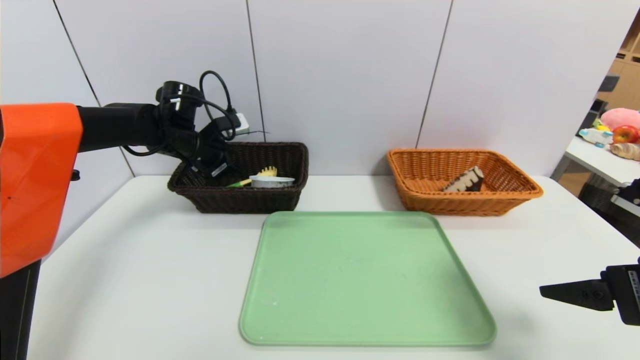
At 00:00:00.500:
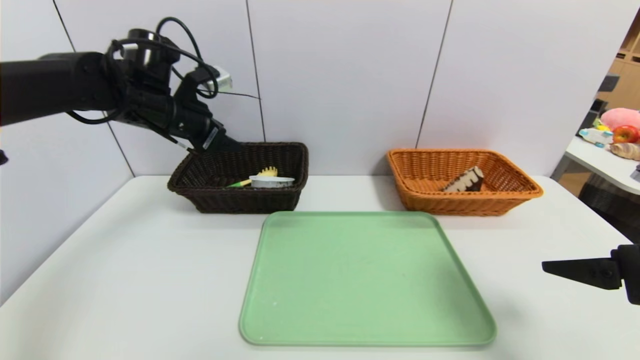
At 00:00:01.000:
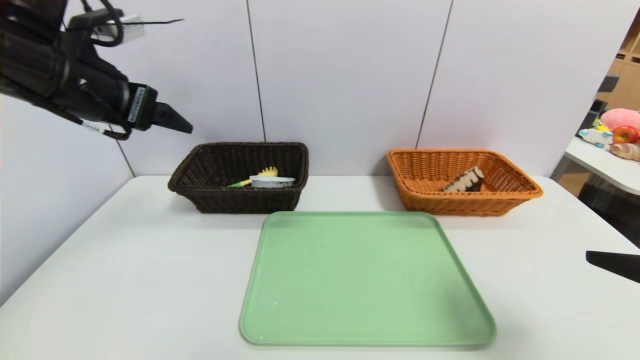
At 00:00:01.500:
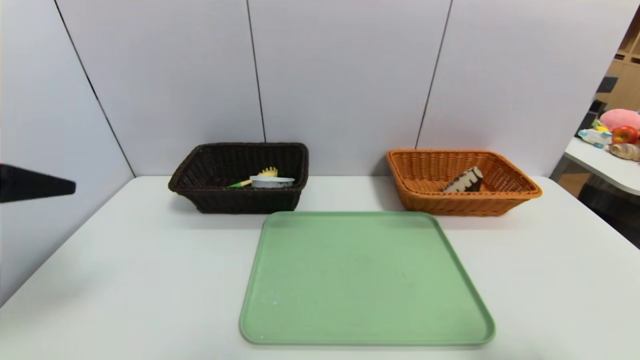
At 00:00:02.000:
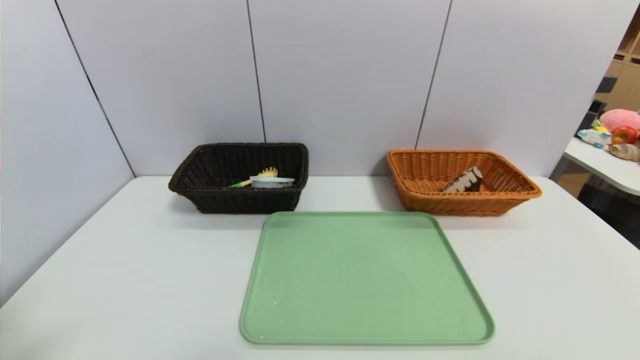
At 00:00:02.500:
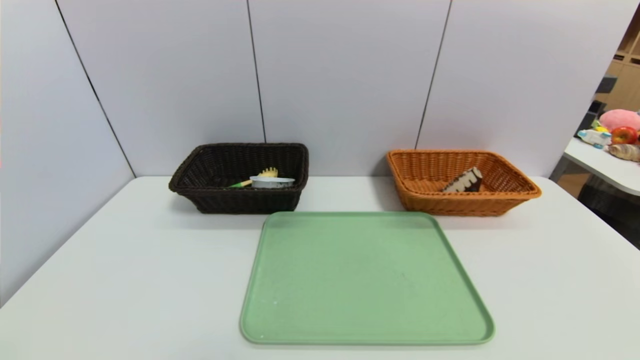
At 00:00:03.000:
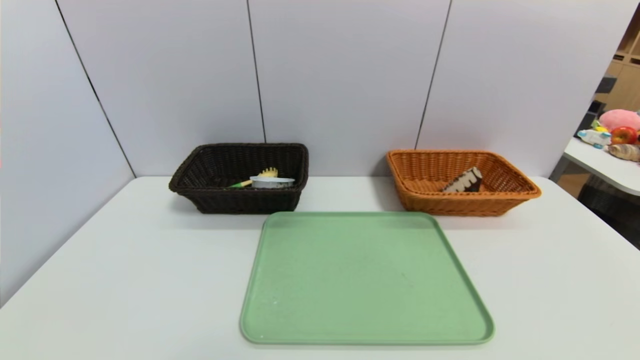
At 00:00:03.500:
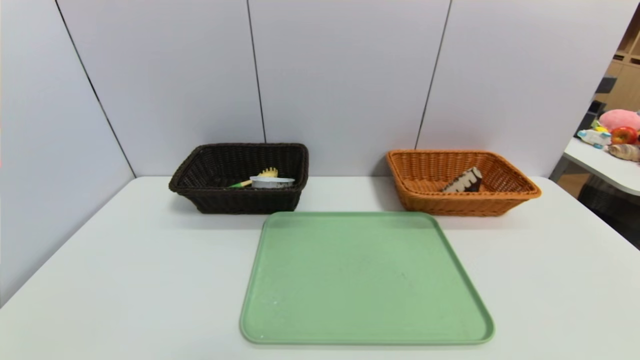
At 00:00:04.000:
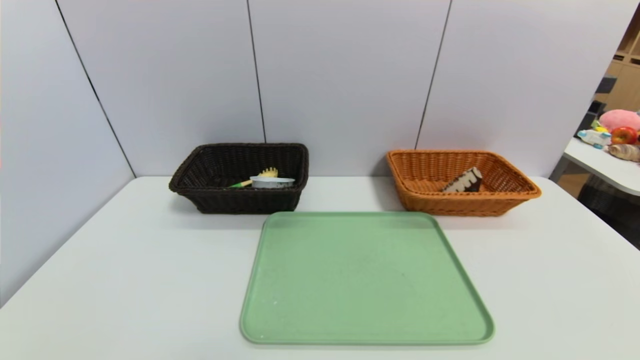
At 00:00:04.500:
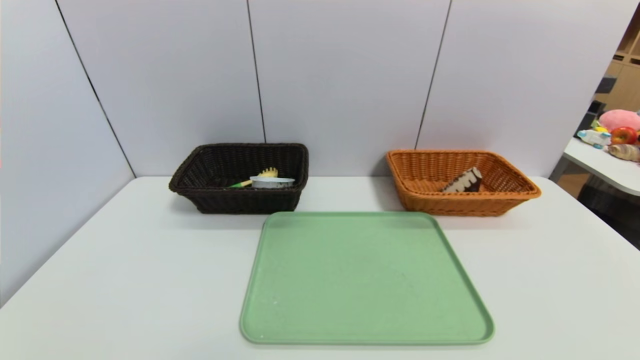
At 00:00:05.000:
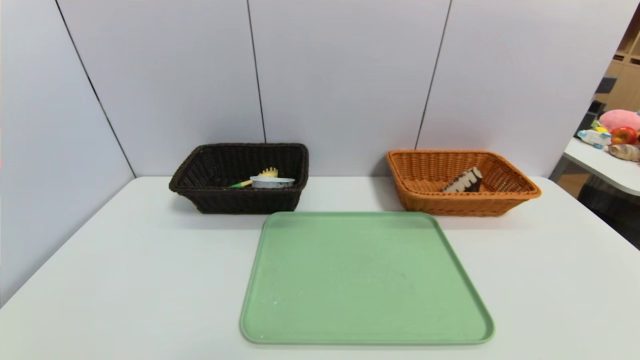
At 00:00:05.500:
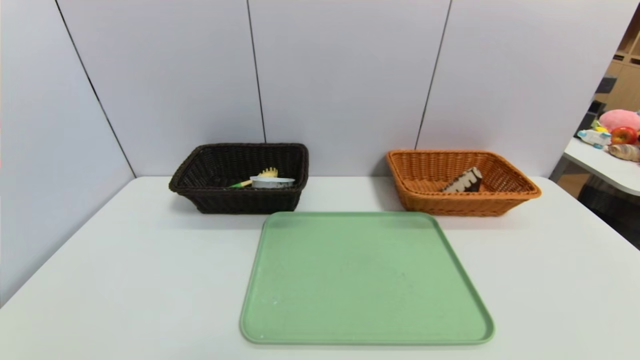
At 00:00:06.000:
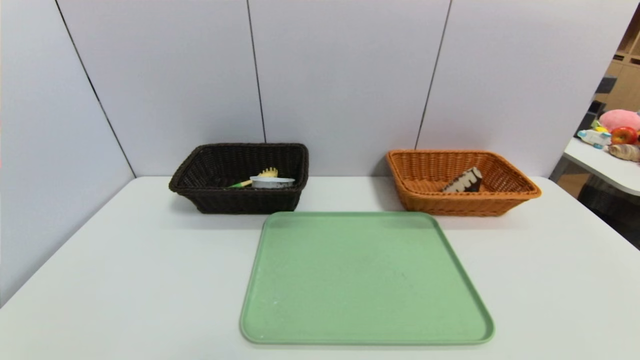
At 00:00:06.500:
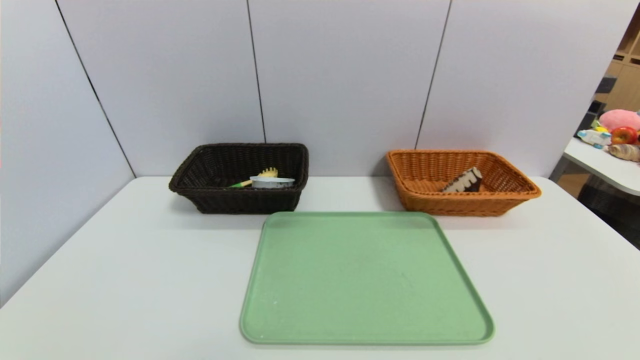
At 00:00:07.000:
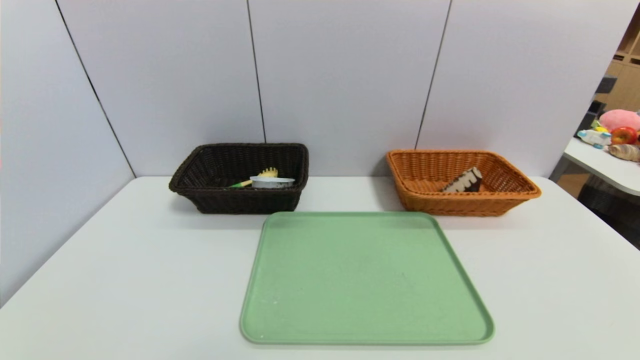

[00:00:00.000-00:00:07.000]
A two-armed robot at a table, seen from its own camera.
Task of the whole recording: place the food in the right basket with the right gripper, and place the non food items in the left basket with the left gripper.
00:00:00.000 to 00:00:02.000: The left gripper goes approximately 40 cm backward, and opens its fingers, while the right gripper is displaced backward by about 15 cm.

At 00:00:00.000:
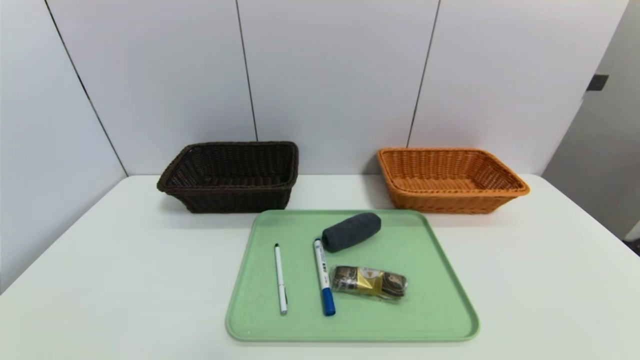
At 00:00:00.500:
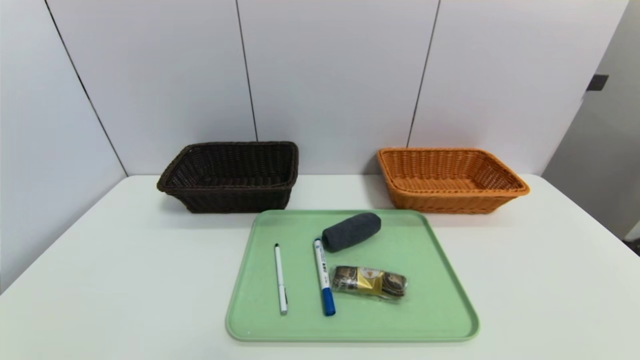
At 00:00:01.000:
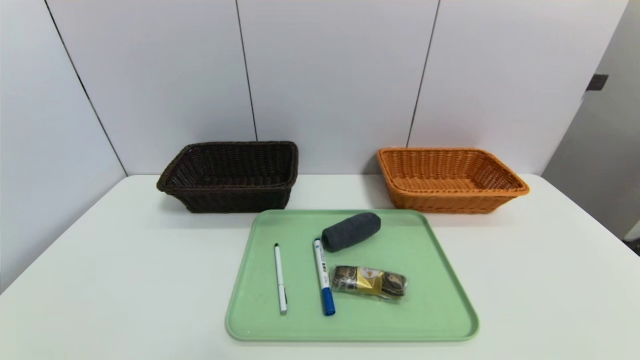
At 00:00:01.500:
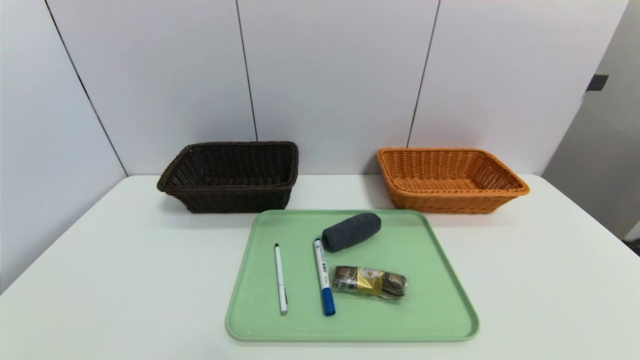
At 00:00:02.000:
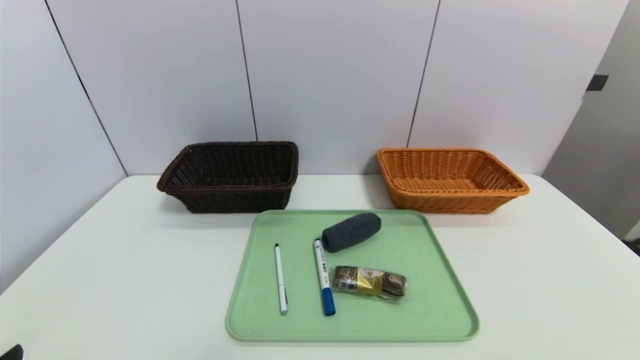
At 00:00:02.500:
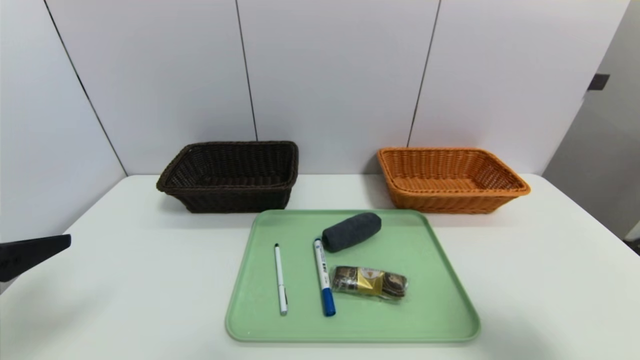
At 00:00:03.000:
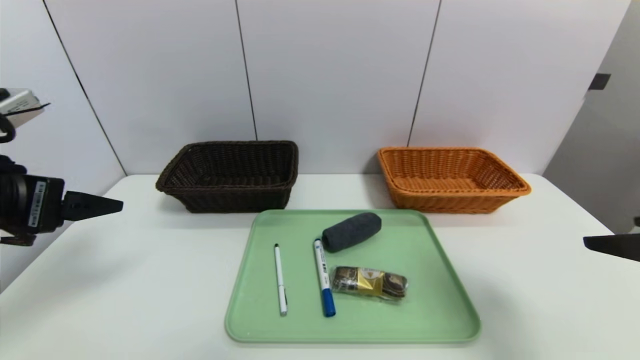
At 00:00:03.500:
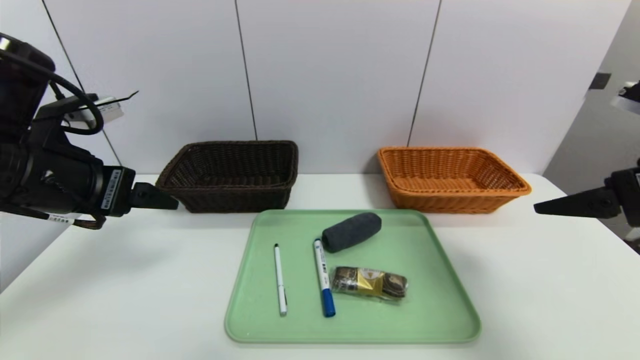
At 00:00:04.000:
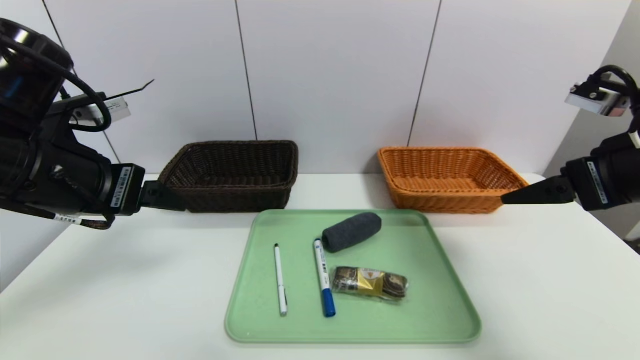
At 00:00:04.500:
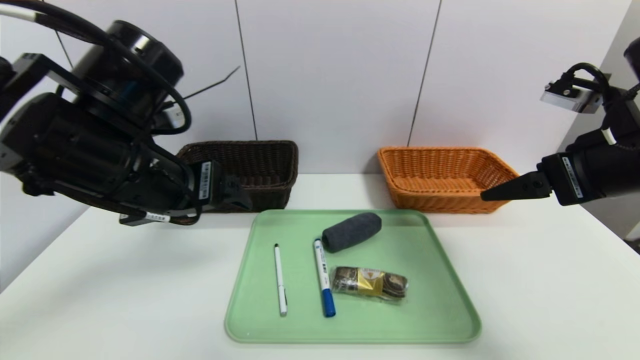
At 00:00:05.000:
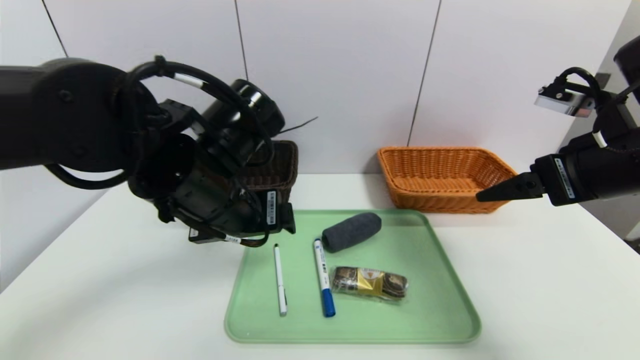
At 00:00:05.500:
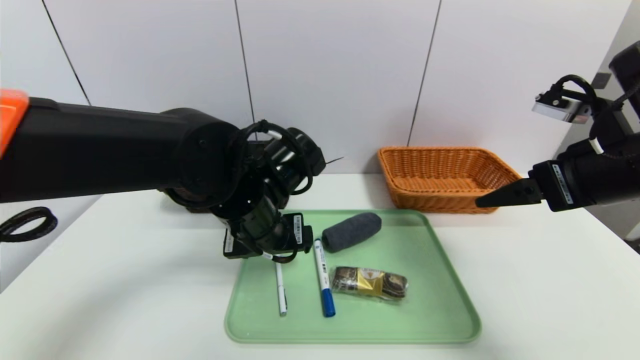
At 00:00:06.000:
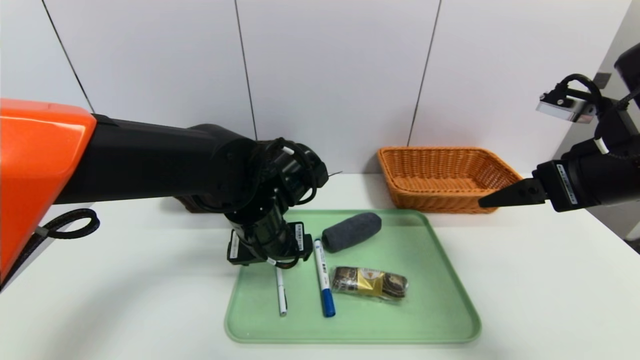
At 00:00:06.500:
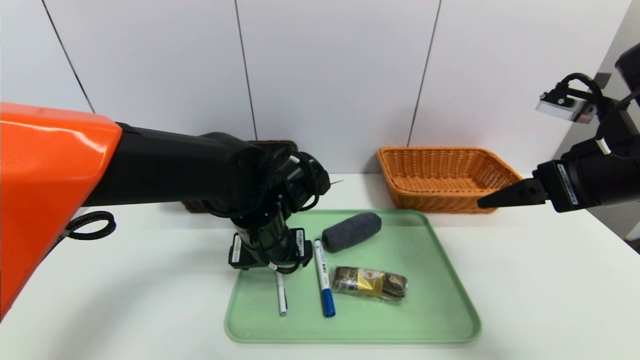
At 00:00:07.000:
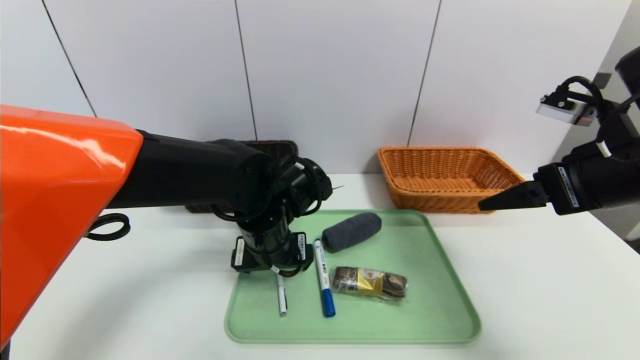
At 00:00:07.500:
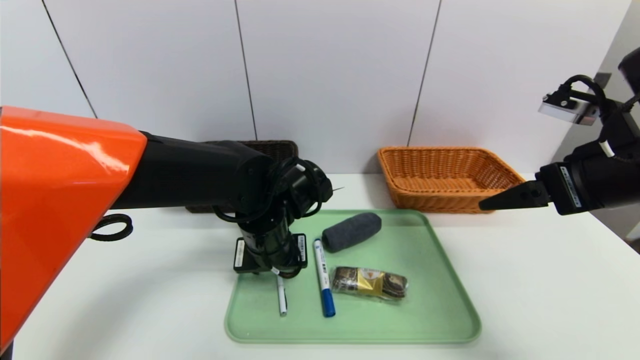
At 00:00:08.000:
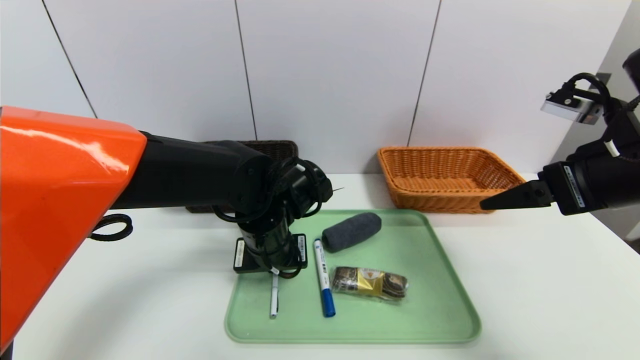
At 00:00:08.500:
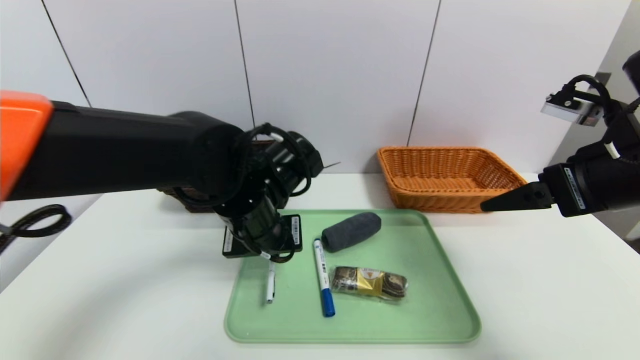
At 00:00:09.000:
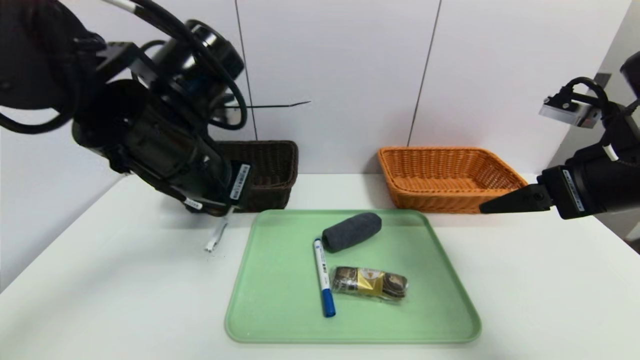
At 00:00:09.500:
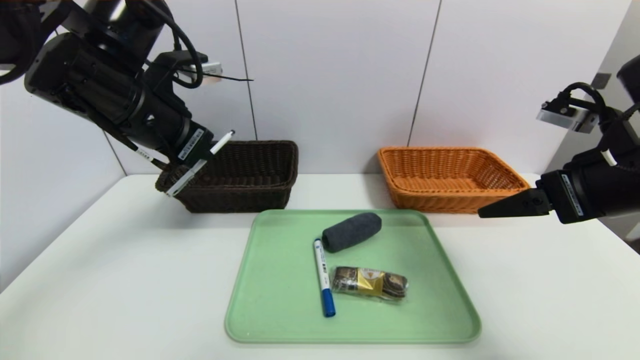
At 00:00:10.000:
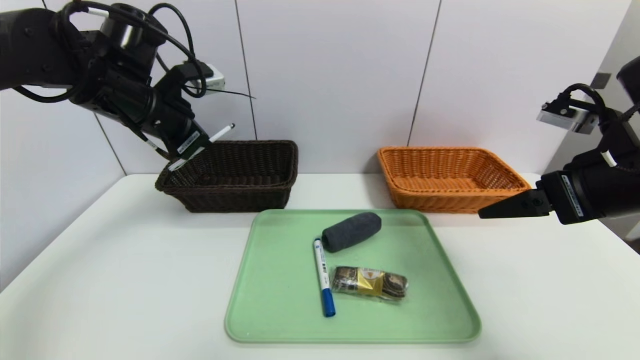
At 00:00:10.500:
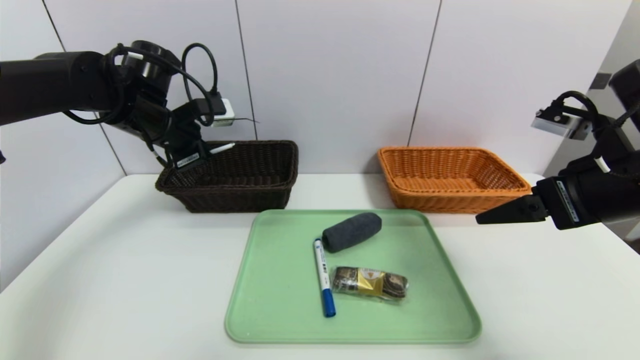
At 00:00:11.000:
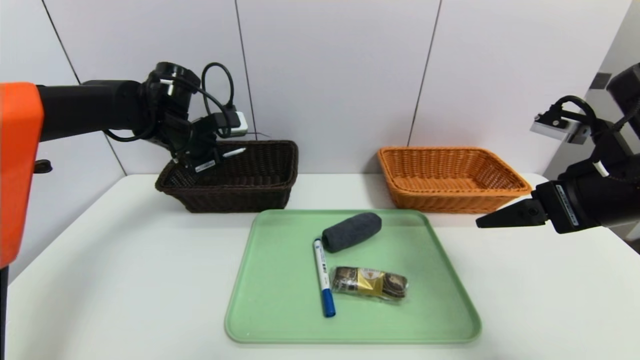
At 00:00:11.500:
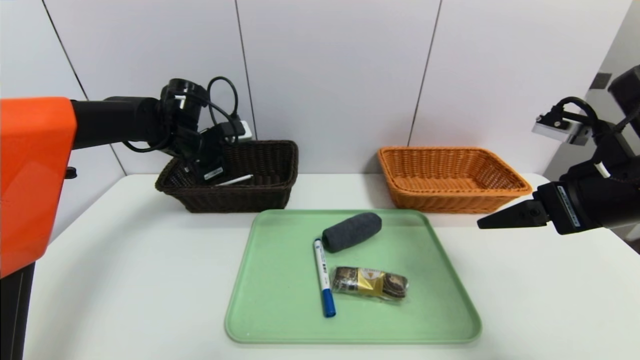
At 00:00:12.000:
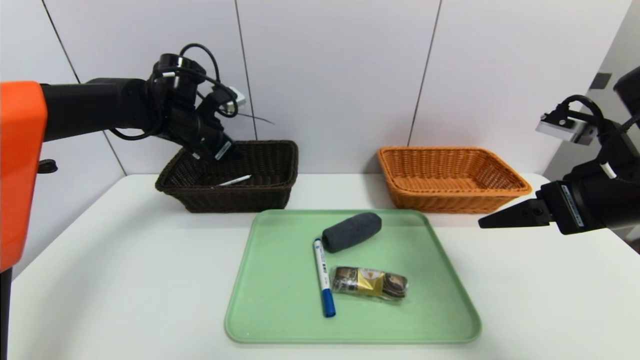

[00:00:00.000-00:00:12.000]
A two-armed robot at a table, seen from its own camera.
Task of the whole recording: place the food in the right basket with the right gripper, and place the non food items in the left basket with the left gripper.
00:00:02.000 to 00:00:04.000: Both grippers move forward and upward, about 25 cm.
00:00:04.000 to 00:00:06.000: The left gripper heads to the right, downward and forward, covering about 20 cm.
00:00:06.000 to 00:00:08.000: The left gripper closes its fingers.
00:00:08.000 to 00:00:10.000: The left gripper moves to the left and upward, approximately 20 cm.
00:00:10.000 to 00:00:12.000: The left gripper heads forward and downward, covering about 10 cm, and opens.

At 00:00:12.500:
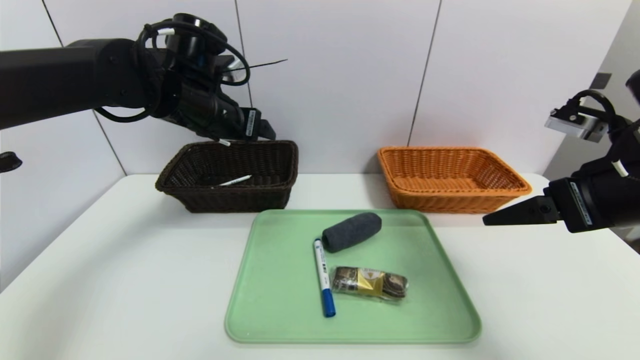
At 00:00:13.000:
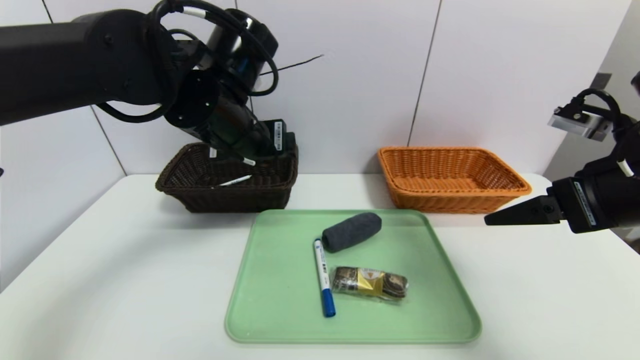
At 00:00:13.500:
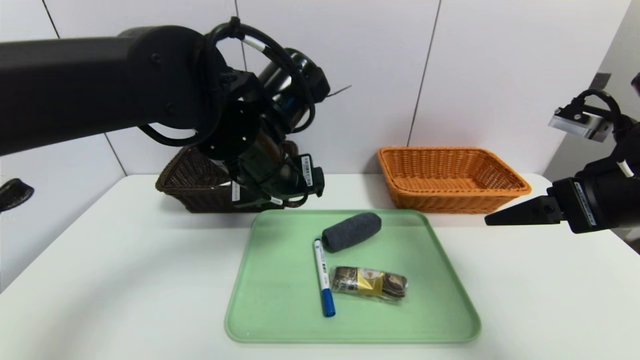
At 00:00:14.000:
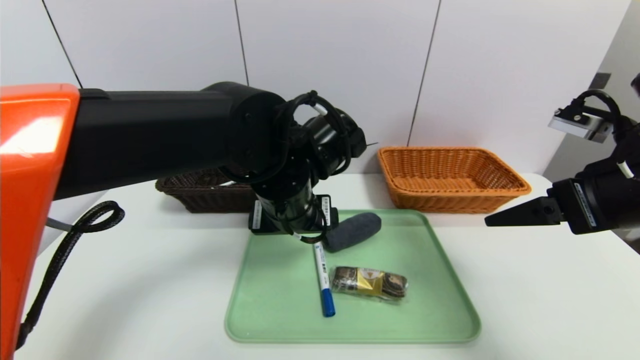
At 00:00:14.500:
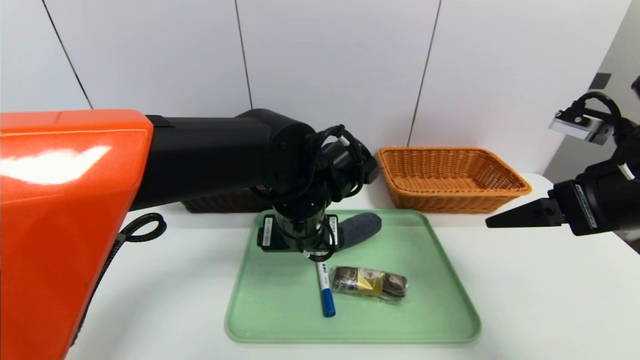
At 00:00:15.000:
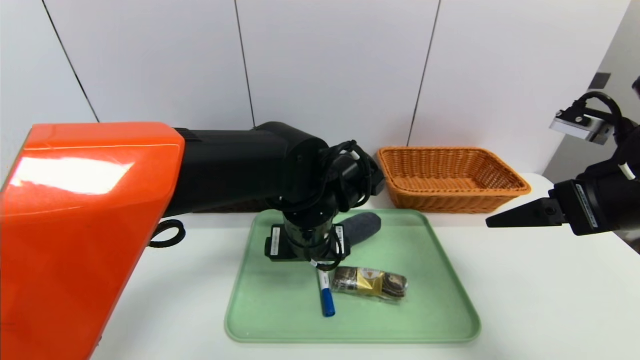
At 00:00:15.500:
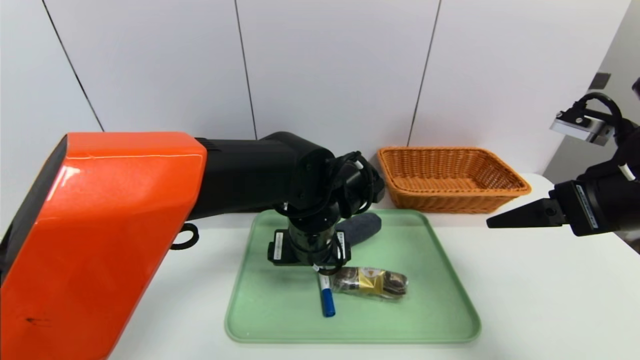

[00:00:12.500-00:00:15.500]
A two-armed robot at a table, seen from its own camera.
Task of the whole recording: place the food in the right basket with the right gripper, and place the non food items in the left basket with the left gripper.
00:00:12.500 to 00:00:14.000: The left gripper is displaced to the right, backward and downward by approximately 15 cm.
00:00:14.000 to 00:00:15.500: The left gripper travels downward by roughly 5 cm.
